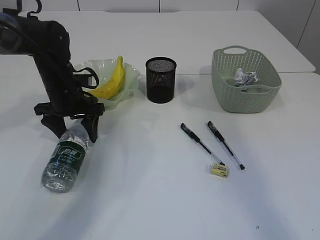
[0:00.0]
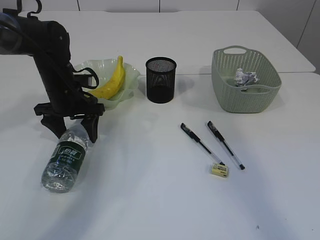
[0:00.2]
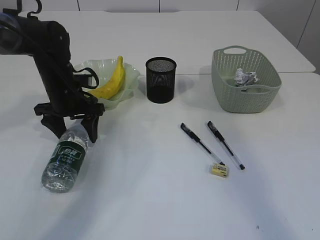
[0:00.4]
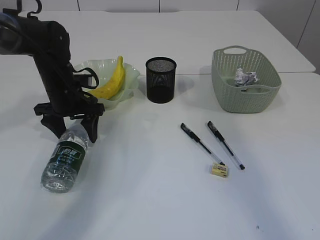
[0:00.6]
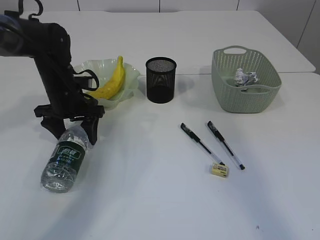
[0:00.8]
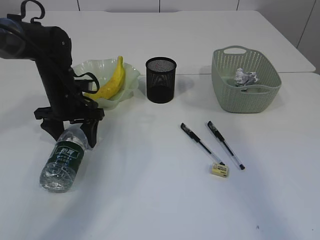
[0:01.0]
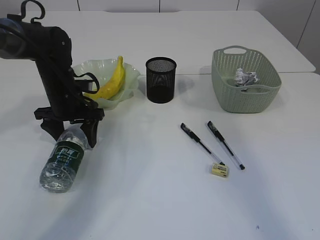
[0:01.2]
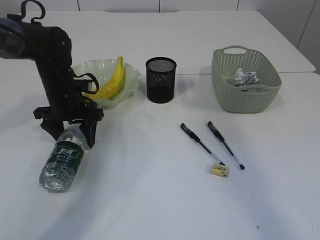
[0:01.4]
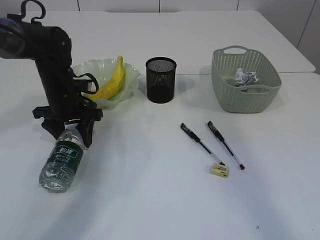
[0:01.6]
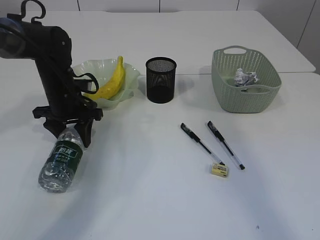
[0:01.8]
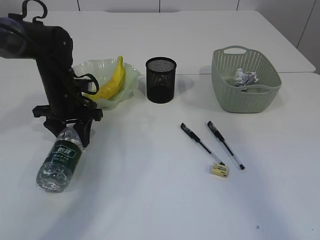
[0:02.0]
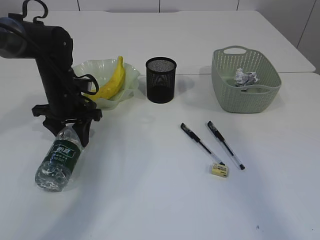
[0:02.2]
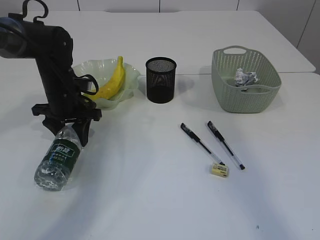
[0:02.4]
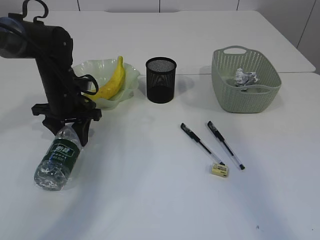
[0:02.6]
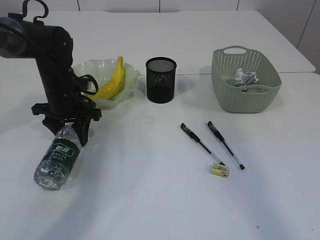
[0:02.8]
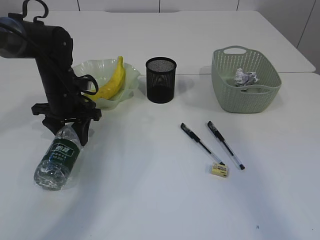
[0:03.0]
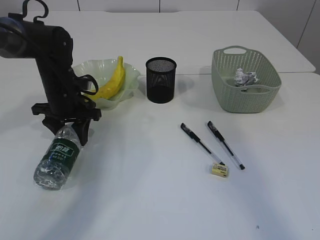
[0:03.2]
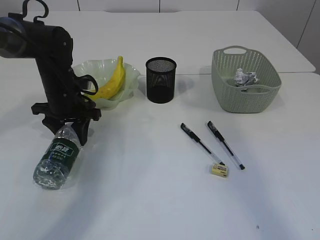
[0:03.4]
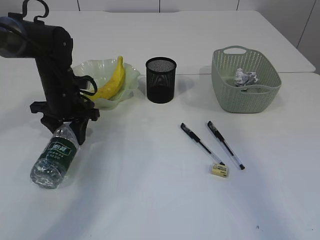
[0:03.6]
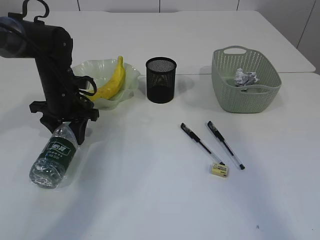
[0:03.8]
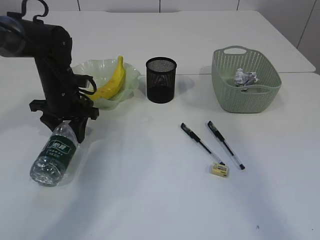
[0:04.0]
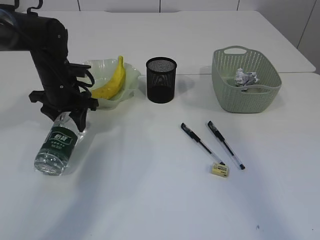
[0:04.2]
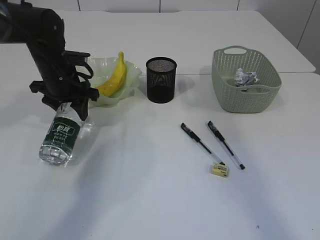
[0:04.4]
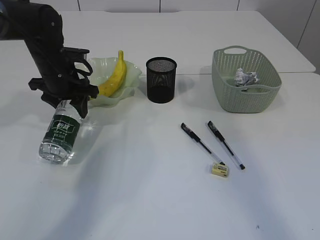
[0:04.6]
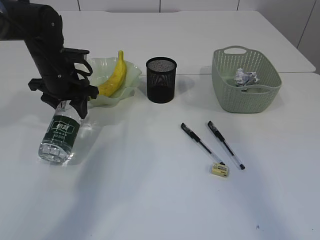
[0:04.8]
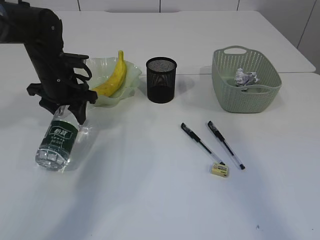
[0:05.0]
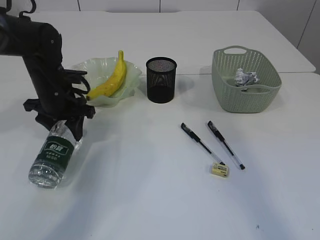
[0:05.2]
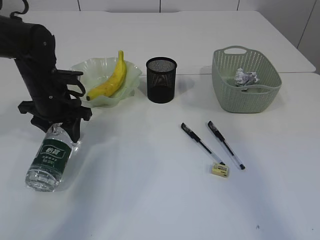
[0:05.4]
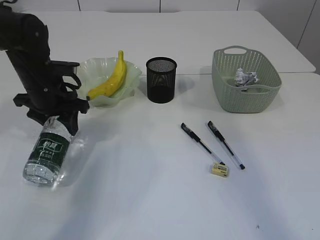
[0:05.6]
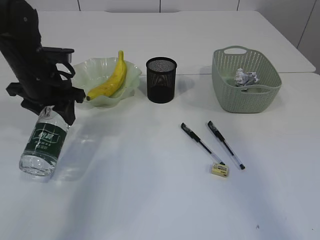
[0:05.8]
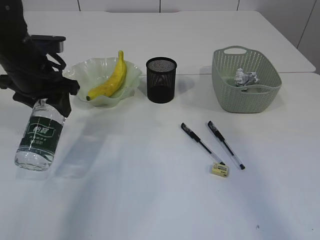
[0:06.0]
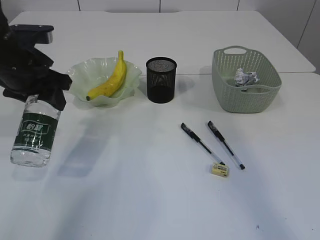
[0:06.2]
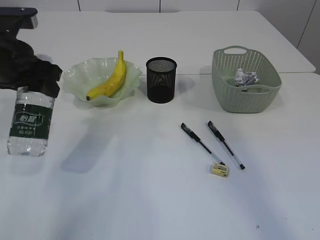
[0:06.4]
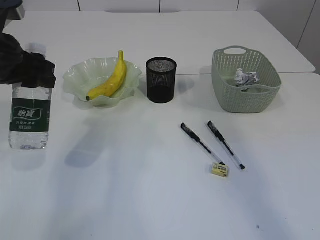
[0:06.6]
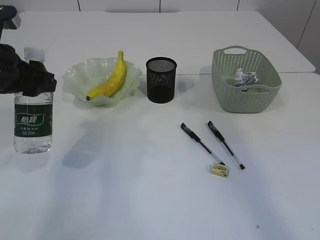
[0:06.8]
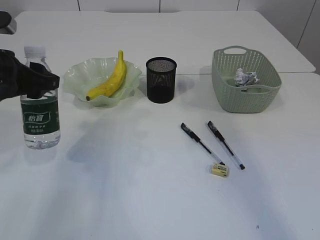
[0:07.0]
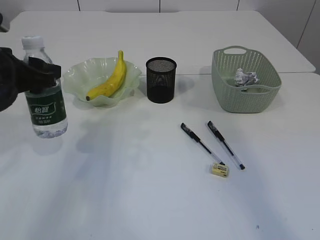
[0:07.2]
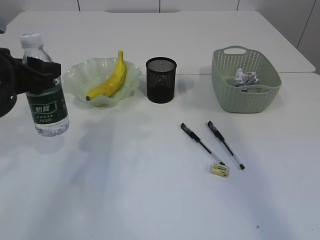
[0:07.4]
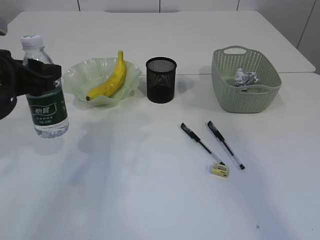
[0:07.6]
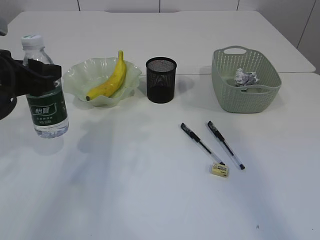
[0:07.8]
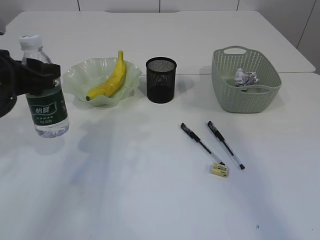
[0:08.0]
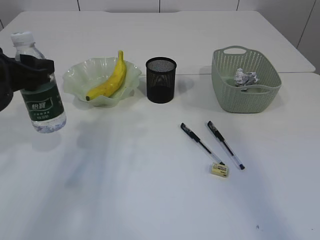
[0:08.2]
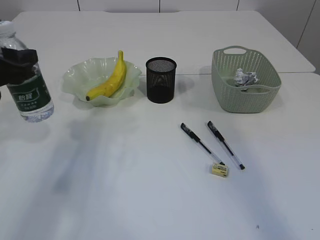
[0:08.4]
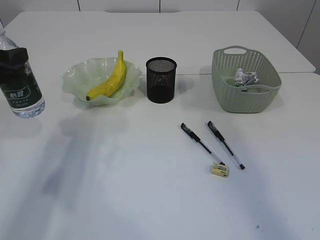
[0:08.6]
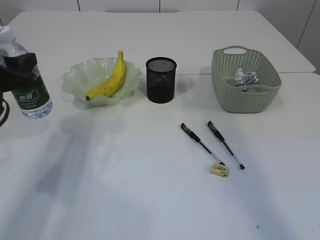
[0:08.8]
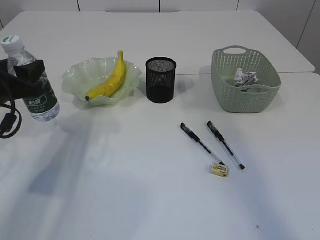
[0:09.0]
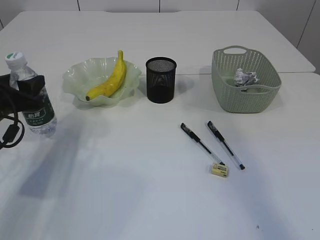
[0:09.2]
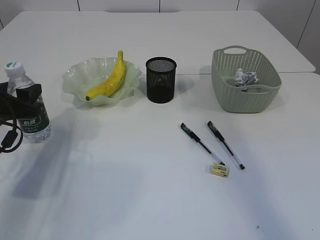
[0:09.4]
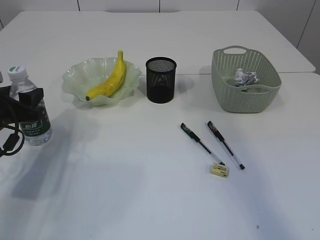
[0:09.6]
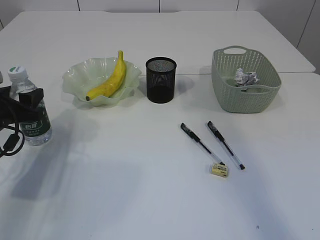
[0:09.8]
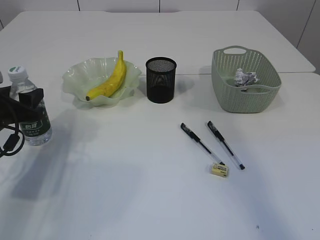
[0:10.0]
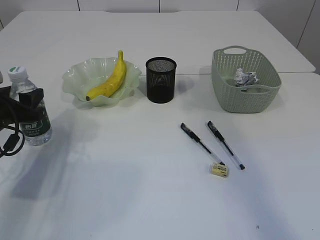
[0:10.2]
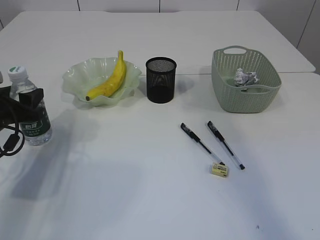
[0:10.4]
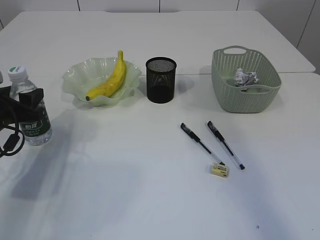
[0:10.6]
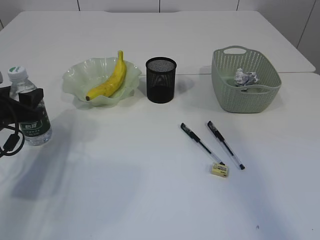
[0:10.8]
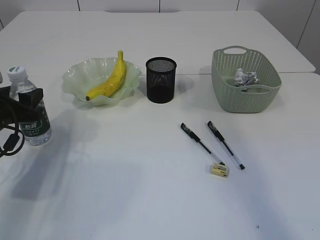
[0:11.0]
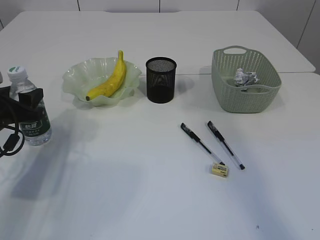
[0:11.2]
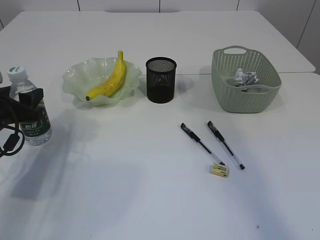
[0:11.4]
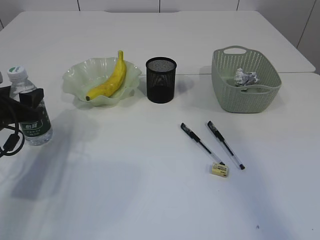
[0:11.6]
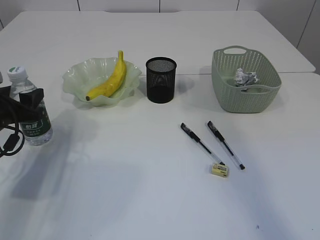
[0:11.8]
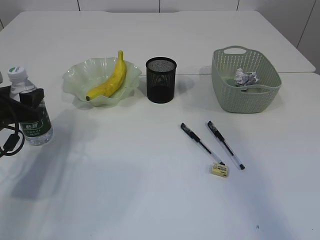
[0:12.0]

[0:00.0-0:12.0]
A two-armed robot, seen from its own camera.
Step, 0:00.0 to 0:05.8: Pick up the bottle with the left arm.
0:00.0 to 0:01.6: Both grippers stay put.
0:01.6 to 0:03.0: Both grippers stay about where they are.
0:03.0 to 0:04.4: The grippers move only a little.
0:04.4 to 0:06.0: The left gripper travels backward and upward by roughly 10 cm.
0:06.0 to 0:07.6: The left gripper heads backward, covering approximately 10 cm.
0:07.6 to 0:09.0: The left gripper shifts about 5 cm downward.
0:09.0 to 0:10.4: The left gripper travels downward by about 5 cm.
0:10.4 to 0:12.0: Both grippers stay put.

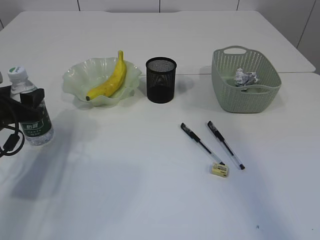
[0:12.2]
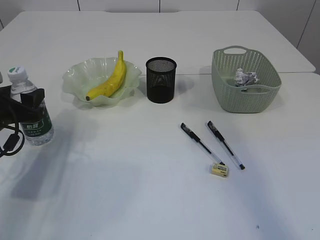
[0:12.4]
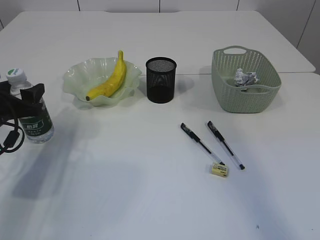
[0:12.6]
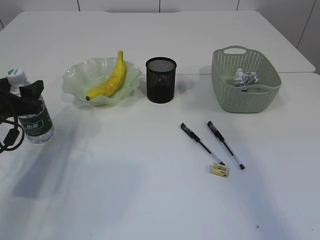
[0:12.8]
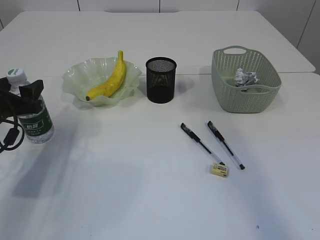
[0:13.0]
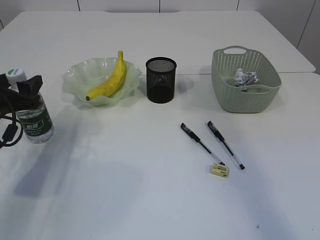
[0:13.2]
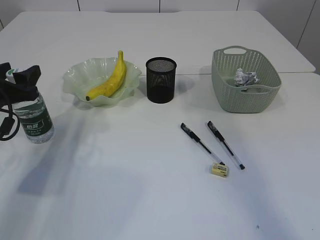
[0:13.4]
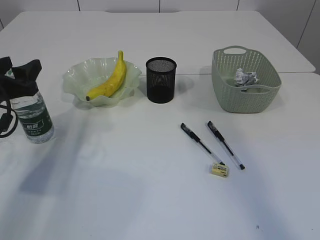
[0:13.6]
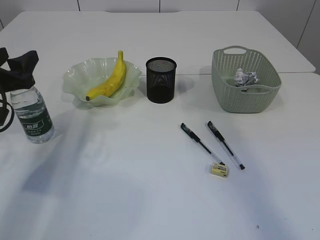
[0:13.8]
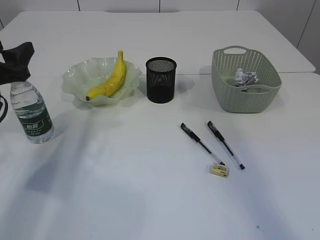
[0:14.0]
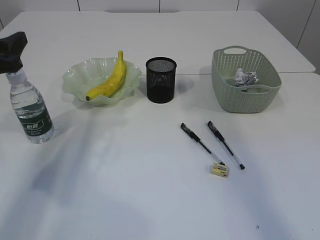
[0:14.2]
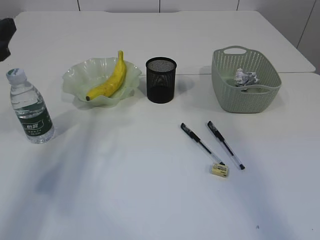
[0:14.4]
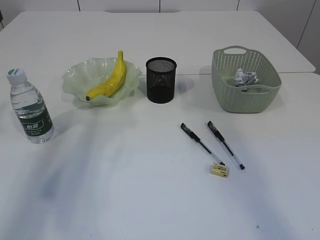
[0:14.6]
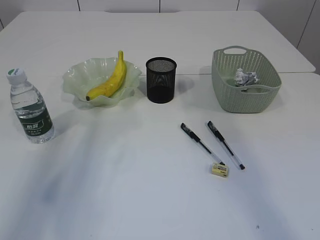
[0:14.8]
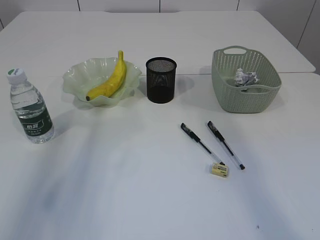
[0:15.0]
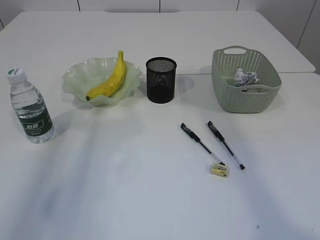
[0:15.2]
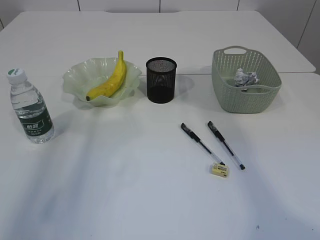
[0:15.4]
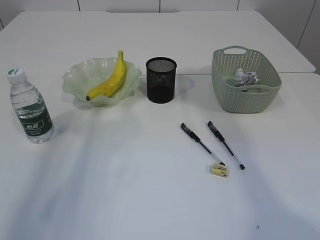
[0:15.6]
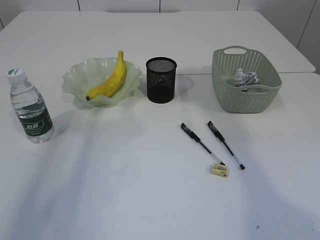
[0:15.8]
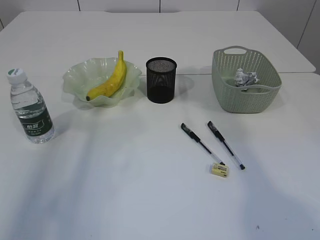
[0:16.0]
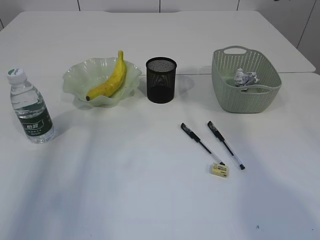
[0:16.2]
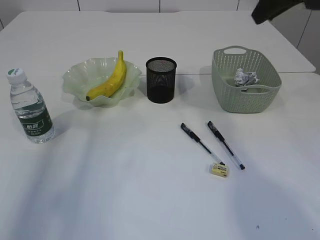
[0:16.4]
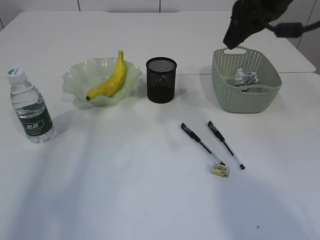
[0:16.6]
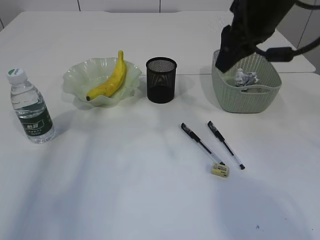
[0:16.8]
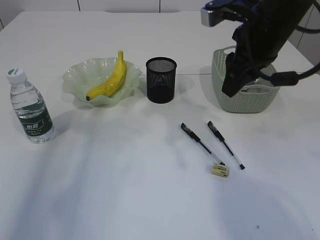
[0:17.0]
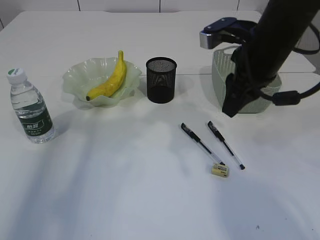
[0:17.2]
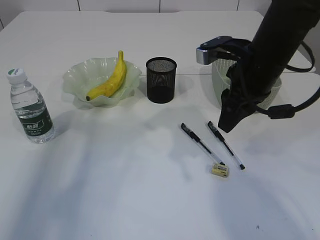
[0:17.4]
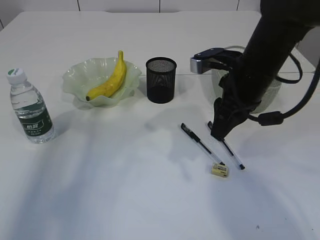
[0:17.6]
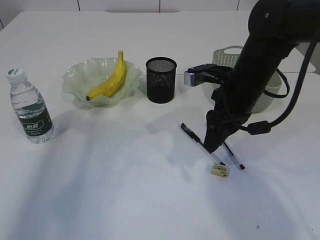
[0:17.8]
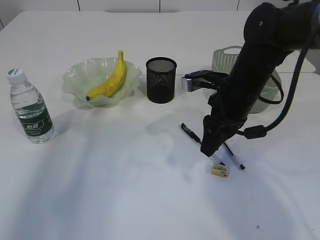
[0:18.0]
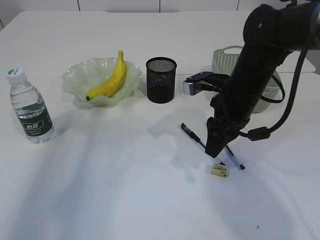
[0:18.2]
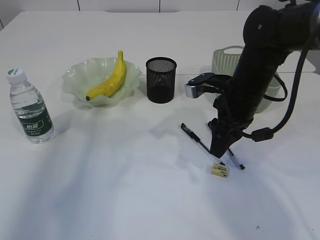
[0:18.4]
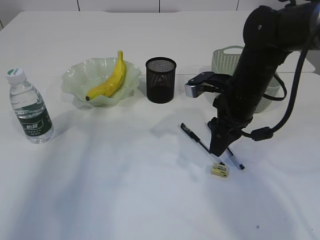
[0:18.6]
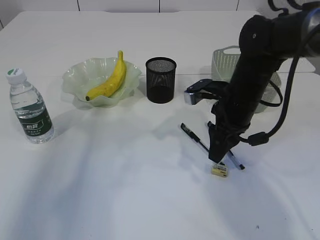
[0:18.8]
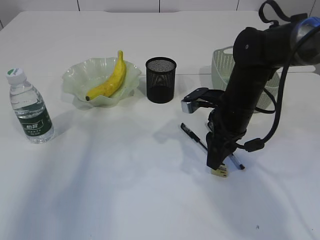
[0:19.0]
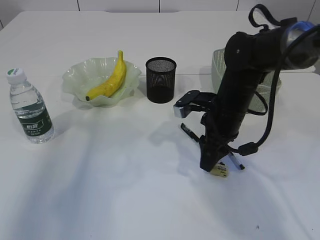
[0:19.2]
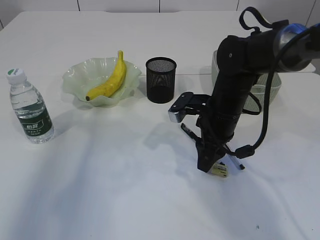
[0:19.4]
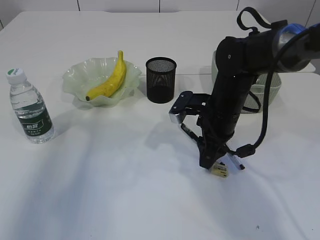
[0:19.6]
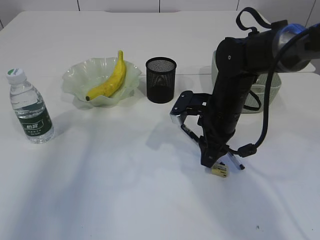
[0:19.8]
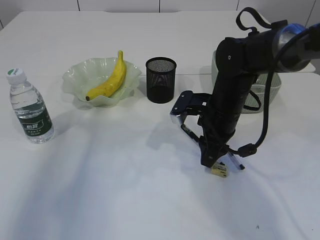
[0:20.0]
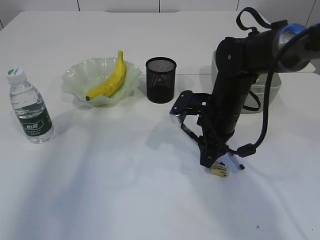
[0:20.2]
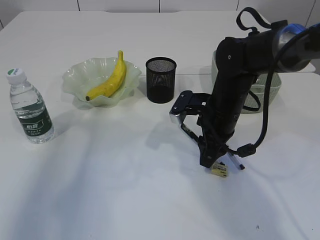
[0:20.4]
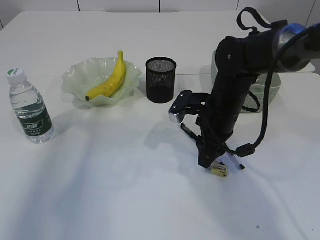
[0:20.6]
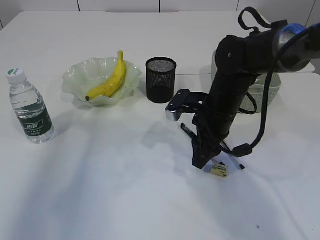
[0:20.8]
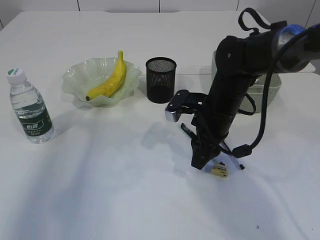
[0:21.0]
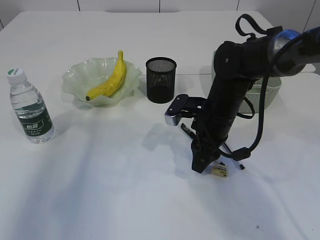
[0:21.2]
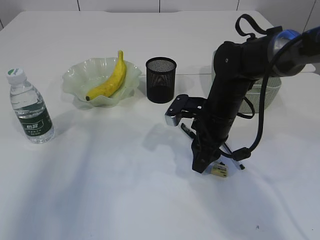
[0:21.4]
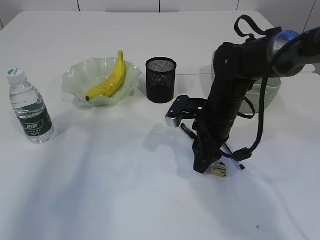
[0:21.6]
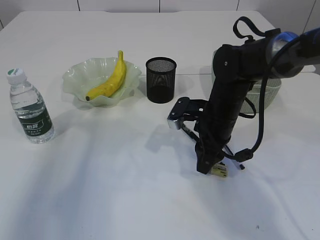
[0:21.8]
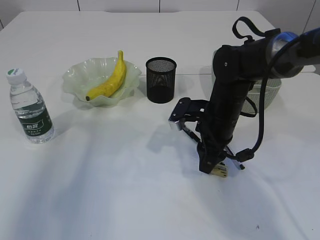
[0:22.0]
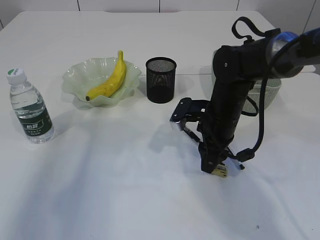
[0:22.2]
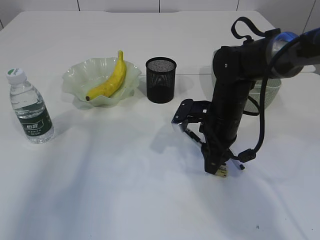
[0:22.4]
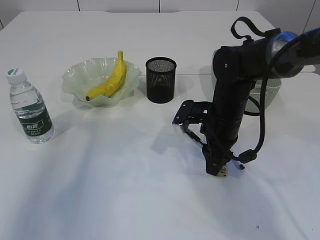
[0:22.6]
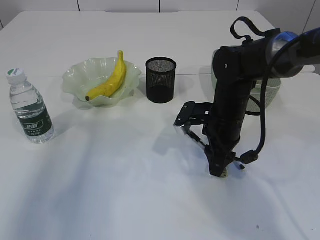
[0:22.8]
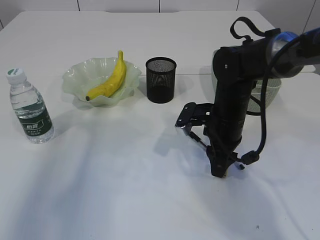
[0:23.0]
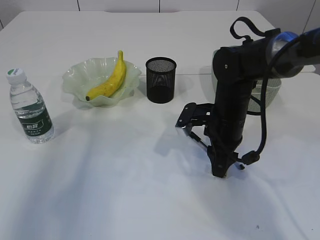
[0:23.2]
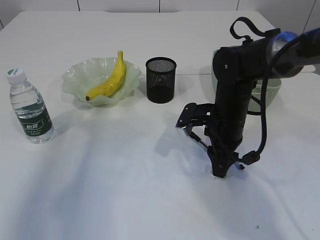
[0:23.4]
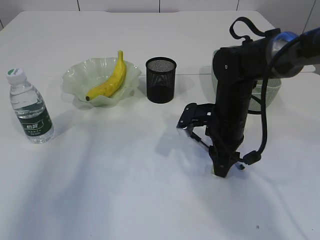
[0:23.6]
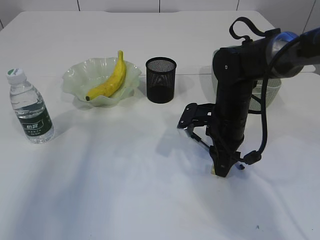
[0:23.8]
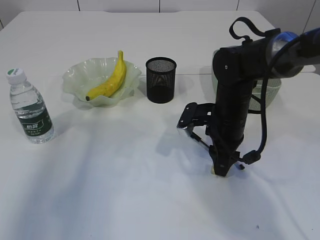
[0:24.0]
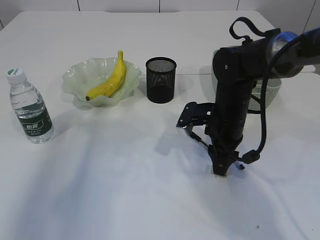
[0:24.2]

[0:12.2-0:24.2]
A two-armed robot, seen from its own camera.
Step, 0:12.2 to 0:14.2: Place the bottle.
0:12.2 to 0:13.8: The left gripper goes roughly 5 cm upward.
0:13.8 to 0:15.2: The left gripper goes about 15 cm upward and backward.
0:15.2 to 0:16.6: The right gripper is displaced downward, to the left and forward by approximately 20 cm.
0:16.6 to 0:18.2: The right gripper heads downward, covering some 15 cm.
0:18.2 to 0:19.8: The right gripper ends up approximately 5 cm from where it was.
0:19.8 to 0:24.2: The grippers move only a little.
